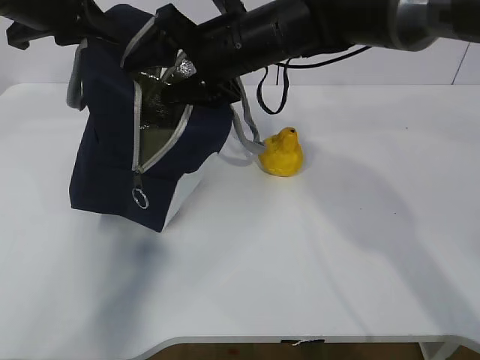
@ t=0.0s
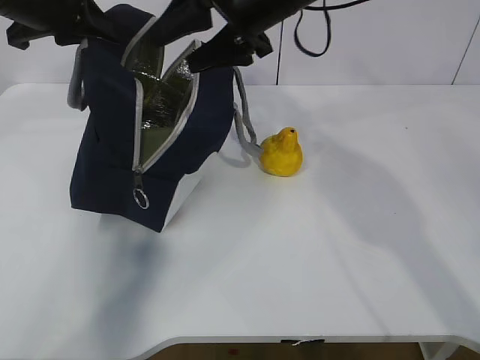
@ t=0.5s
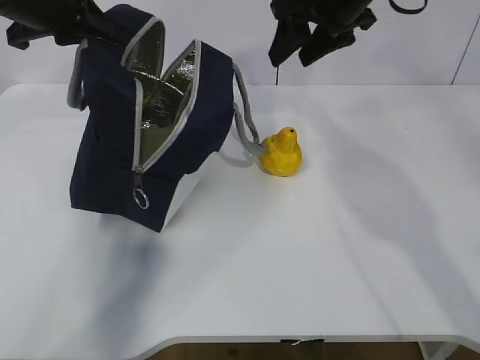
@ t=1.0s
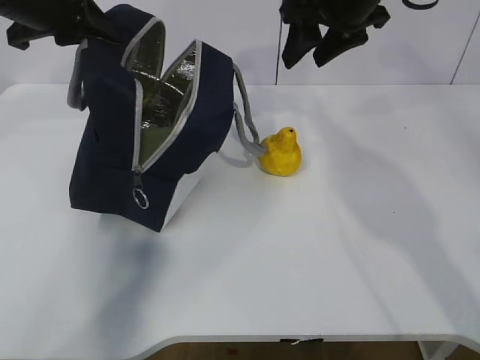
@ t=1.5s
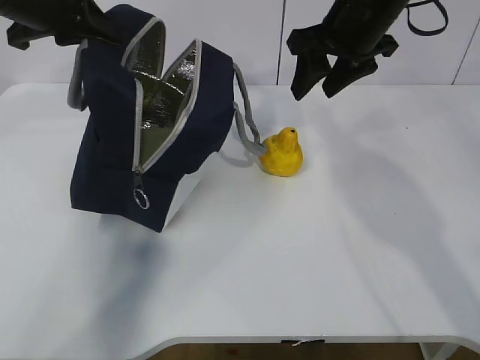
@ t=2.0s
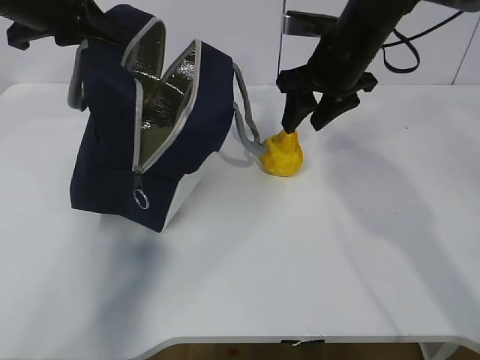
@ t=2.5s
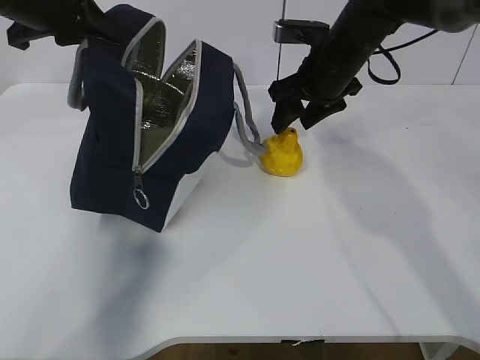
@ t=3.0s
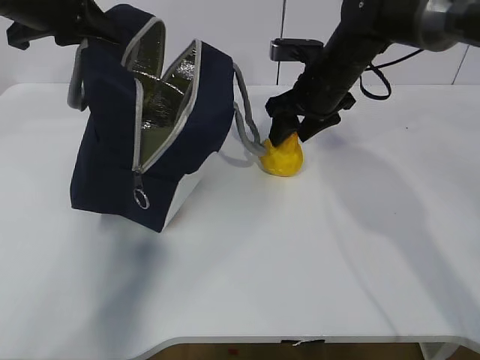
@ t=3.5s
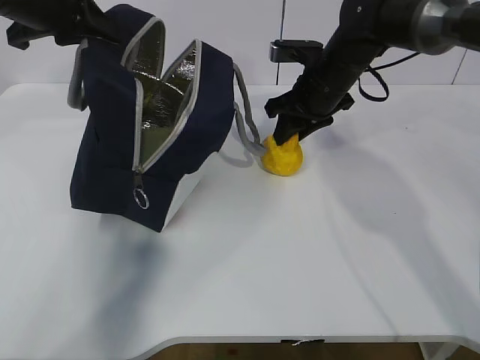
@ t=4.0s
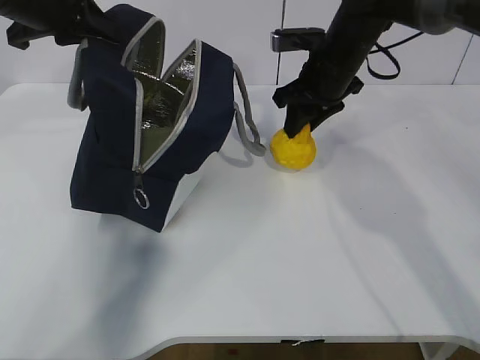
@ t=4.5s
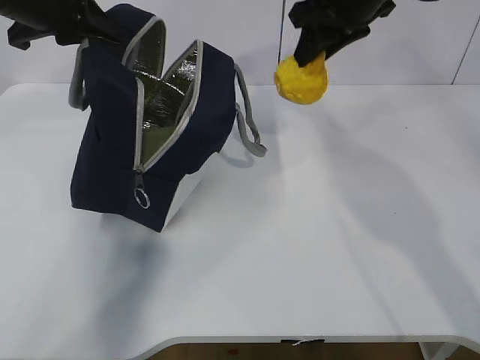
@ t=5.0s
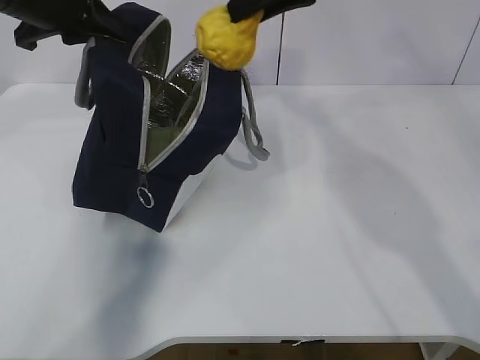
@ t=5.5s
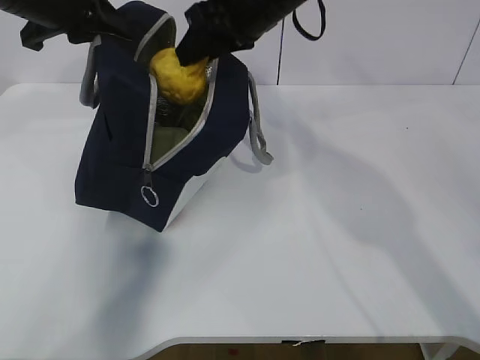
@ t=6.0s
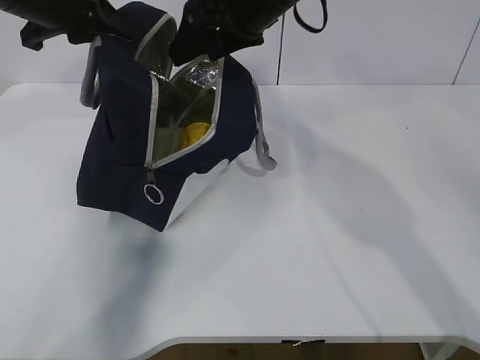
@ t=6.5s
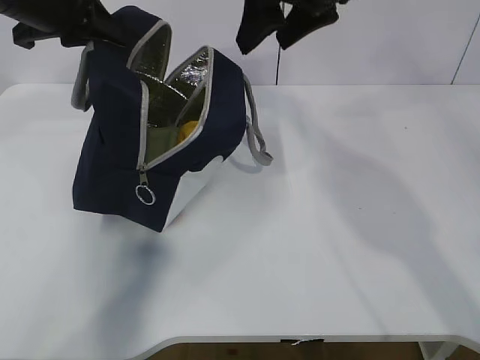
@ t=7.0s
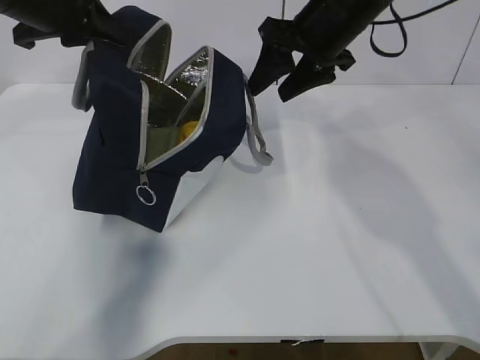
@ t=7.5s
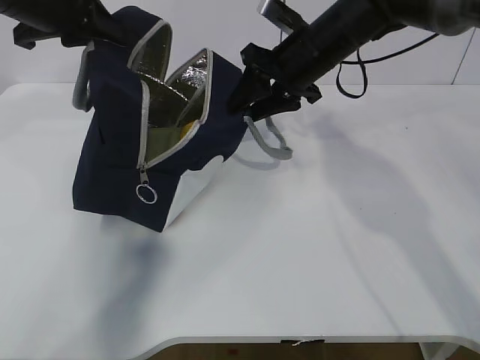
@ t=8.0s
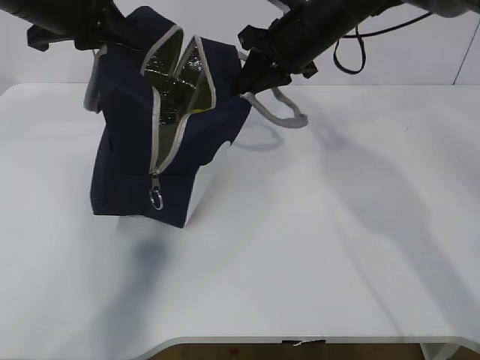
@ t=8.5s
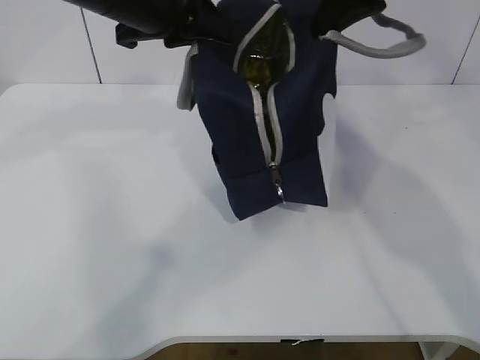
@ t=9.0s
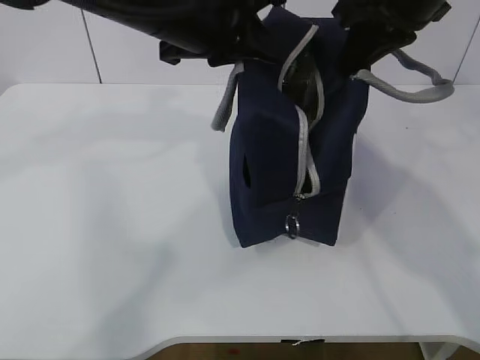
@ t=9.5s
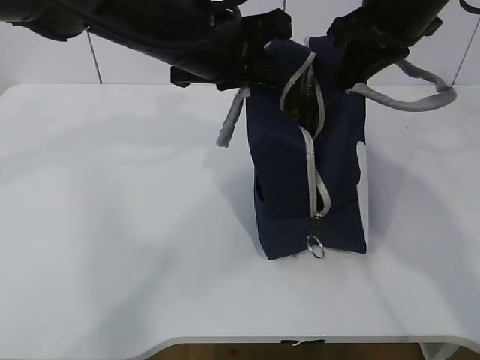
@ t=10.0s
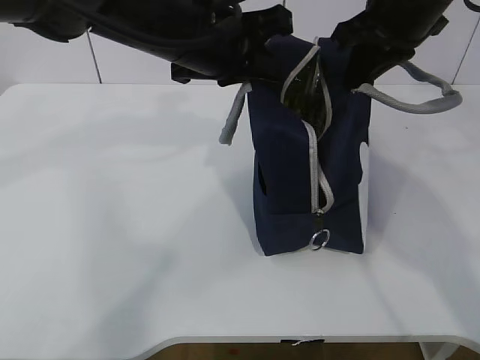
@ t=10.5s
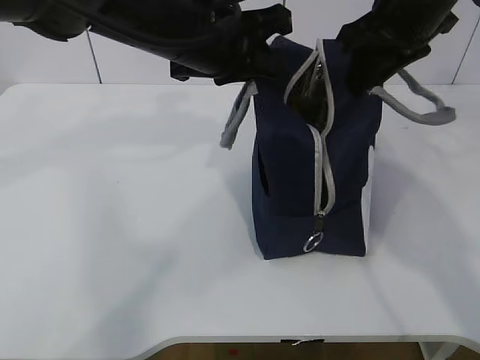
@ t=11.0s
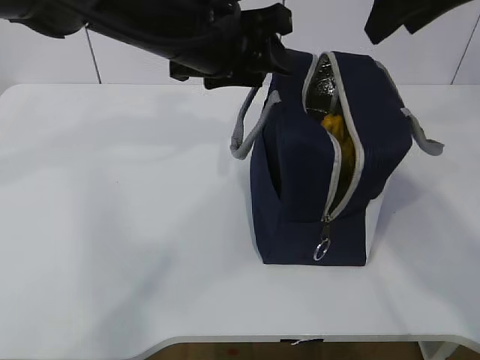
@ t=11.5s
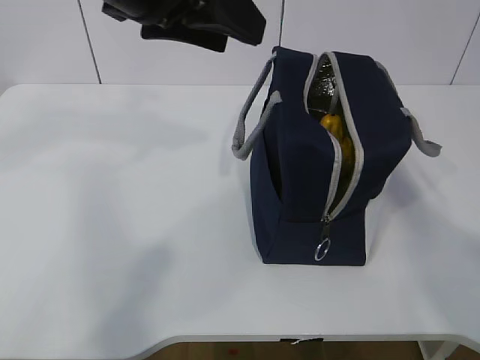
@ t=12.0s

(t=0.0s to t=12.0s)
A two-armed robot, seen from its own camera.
Step, t=0.5s - t=4.0s: Grasp the pear with the right gripper.
Step, t=4.5s - t=6.0s: Place the pear into the package with the right gripper.
t=0.0s - t=2.0s: The right gripper moves to the right, roughly 15 cm.
t=2.0s - t=4.0s: The right gripper shifts some 10 cm downward.
t=4.0s - t=6.0s: The right gripper shifts about 15 cm upward and to the left.
t=6.0s - t=8.0s: The right gripper moves downward and to the right, some 10 cm.
t=8.0s - t=10.0s: The left gripper heads to the right, covering roughly 15 cm. Meanwhile the right gripper is displaced upward, backward and to the right by approximately 15 cm, and closes.
t=10.0s - t=12.0s: The left gripper shifts about 10 cm upward and backward, and opens up, while the right gripper shifts approximately 15 cm upward and backward, and opens up.

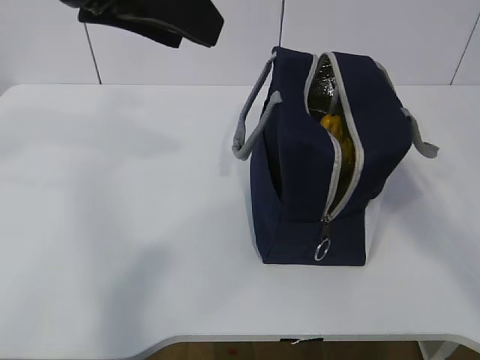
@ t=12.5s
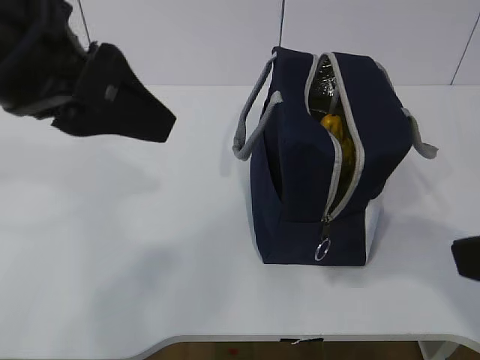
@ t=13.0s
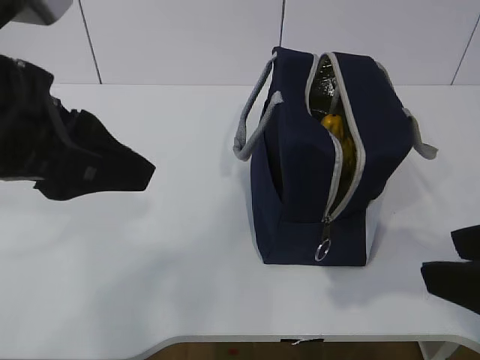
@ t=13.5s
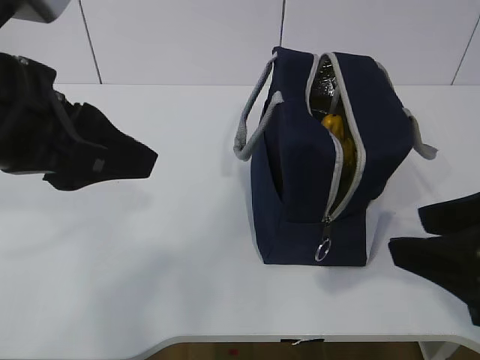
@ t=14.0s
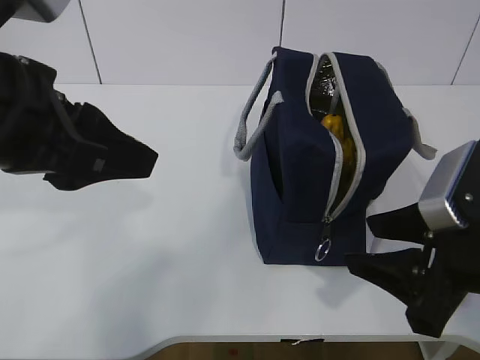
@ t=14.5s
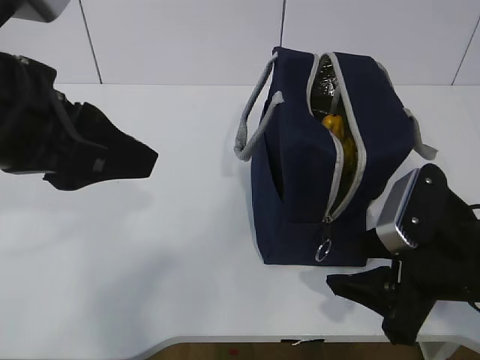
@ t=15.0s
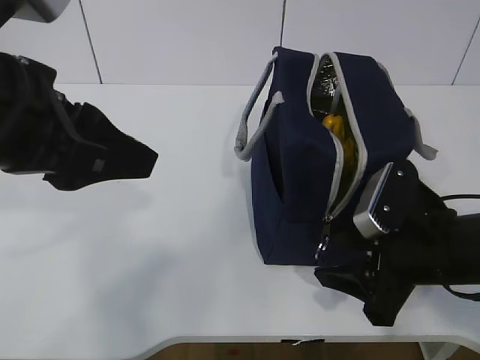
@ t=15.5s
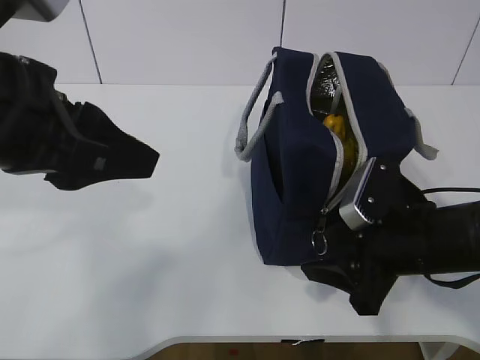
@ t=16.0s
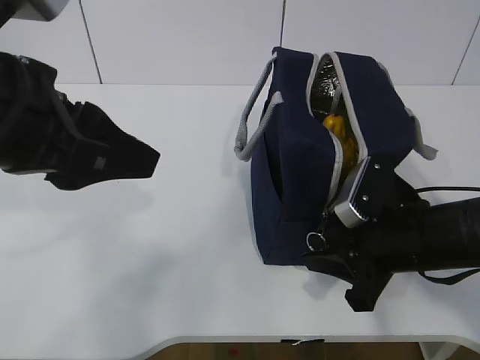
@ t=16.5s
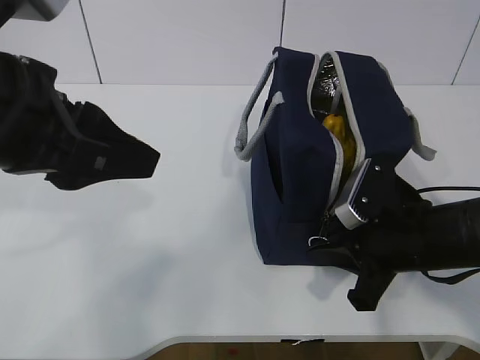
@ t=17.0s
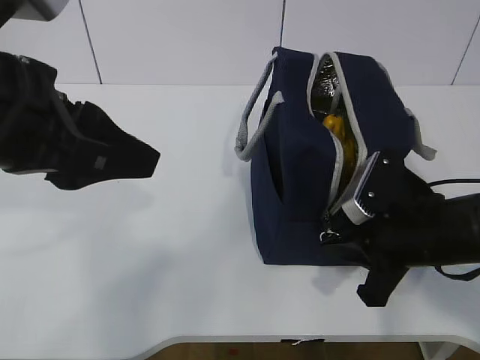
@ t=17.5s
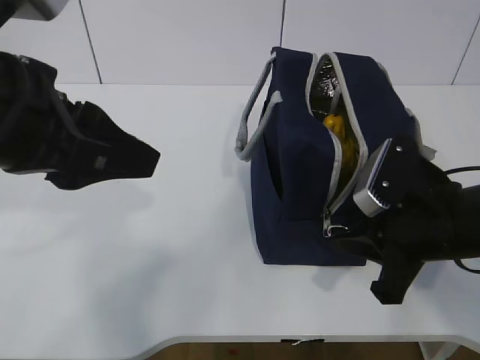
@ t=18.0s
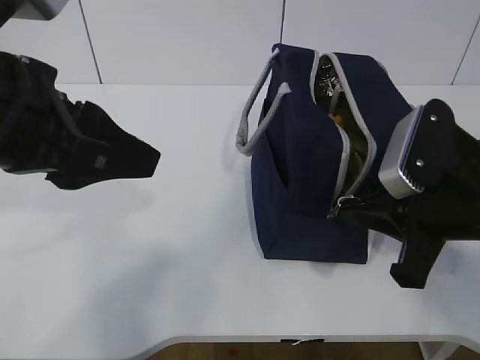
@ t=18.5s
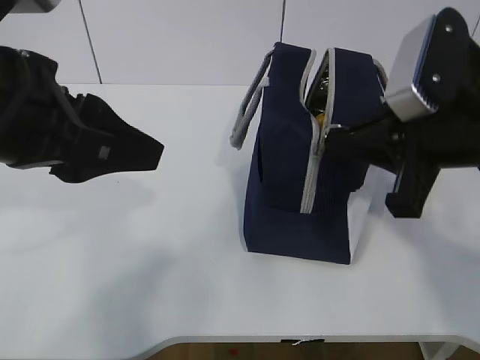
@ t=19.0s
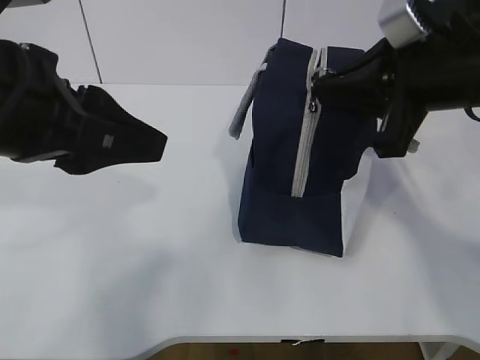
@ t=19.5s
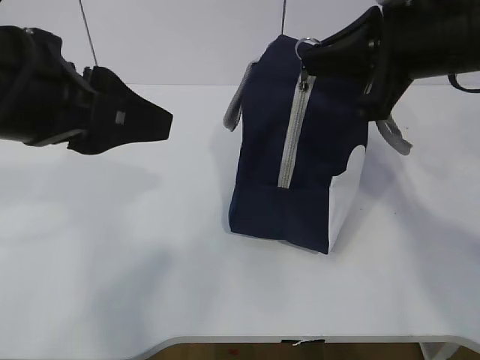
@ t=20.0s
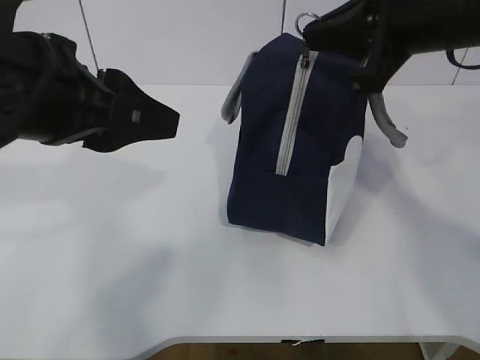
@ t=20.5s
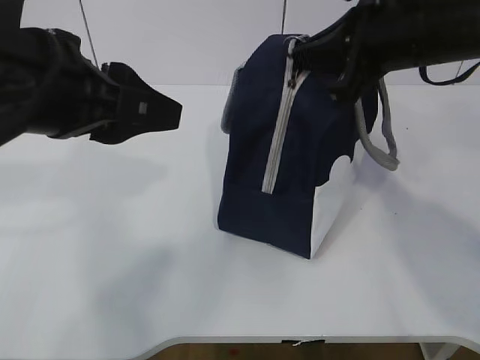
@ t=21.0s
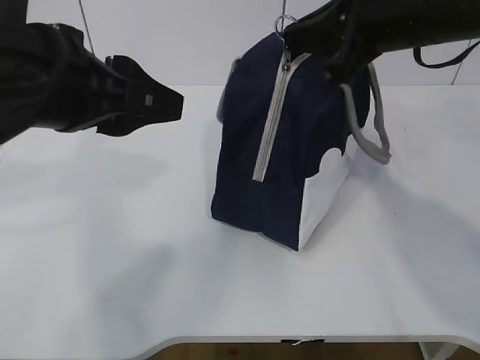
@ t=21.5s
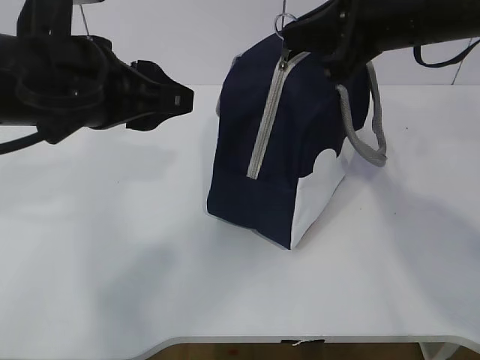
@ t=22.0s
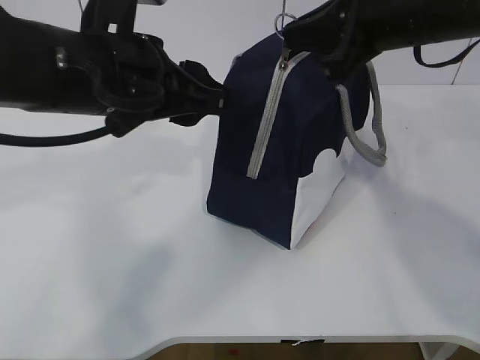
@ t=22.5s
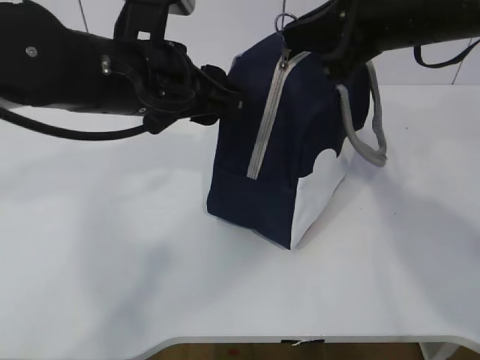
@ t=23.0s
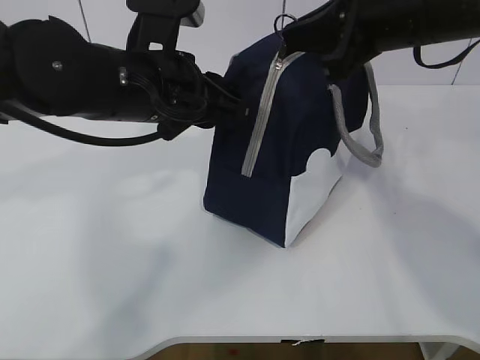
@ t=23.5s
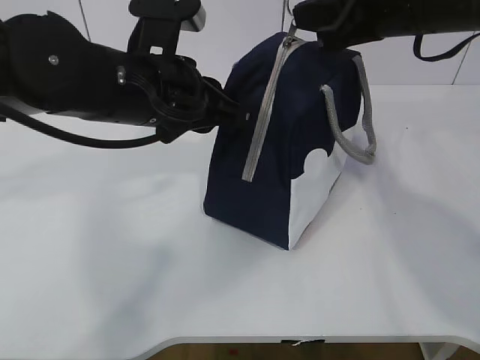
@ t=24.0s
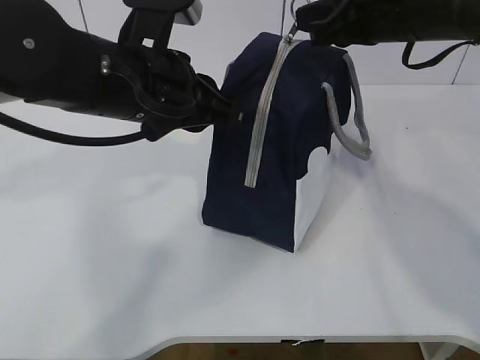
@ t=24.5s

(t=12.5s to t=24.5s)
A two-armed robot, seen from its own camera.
t=12.5s - t=14.5s: The left gripper is displaced downward by approximately 10 cm. The right gripper shifts about 20 cm downward.
t=14.5s - t=16.5s: The right gripper is displaced forward and downward by about 10 cm.
t=16.5s - t=18.5s: The right gripper moves upward, roughly 5 cm, and closes.
t=18.5s - t=20.5s: The right gripper travels upward and forward by some 15 cm.
t=20.5s - t=22.5s: The left gripper moves forward, about 5 cm.
t=22.5s - t=24.5s: The left gripper closes up.

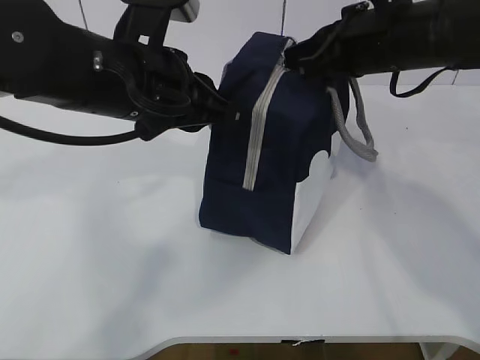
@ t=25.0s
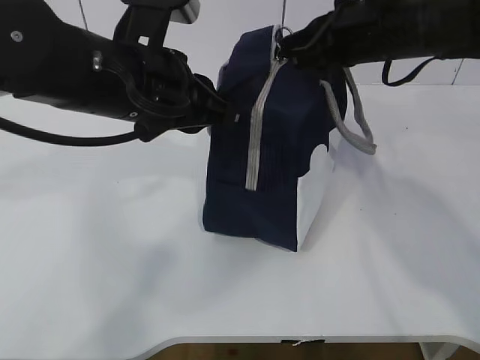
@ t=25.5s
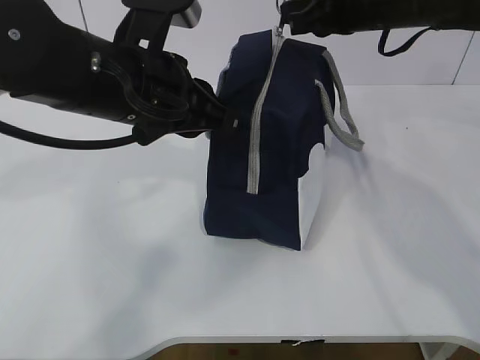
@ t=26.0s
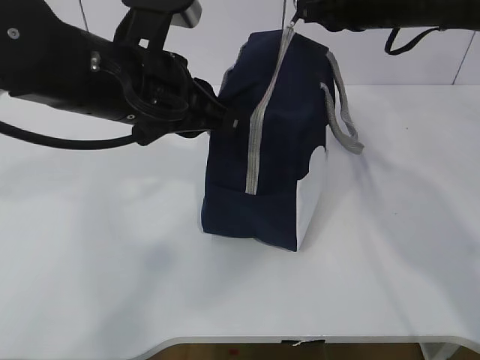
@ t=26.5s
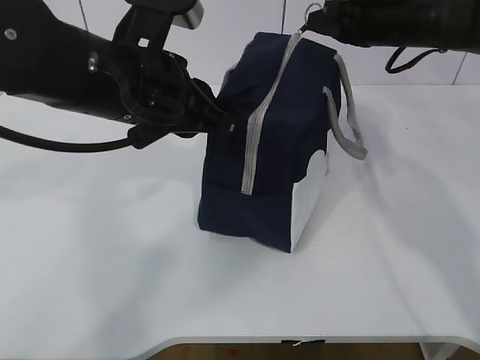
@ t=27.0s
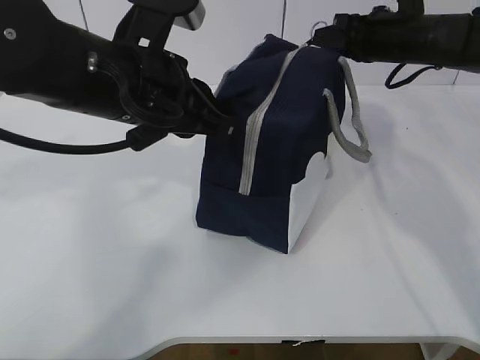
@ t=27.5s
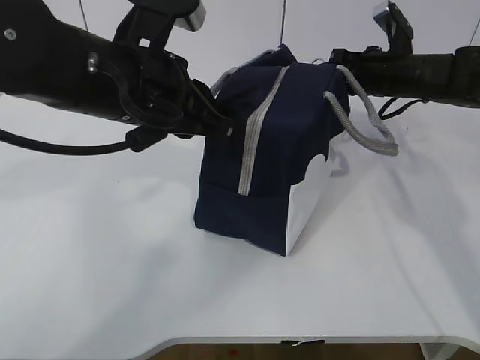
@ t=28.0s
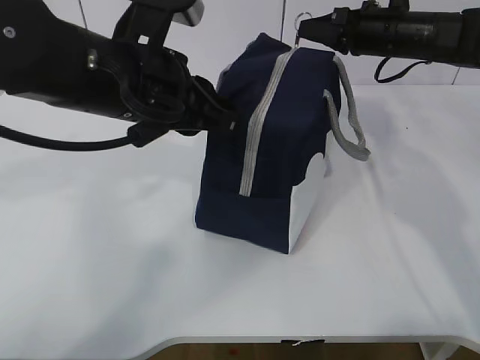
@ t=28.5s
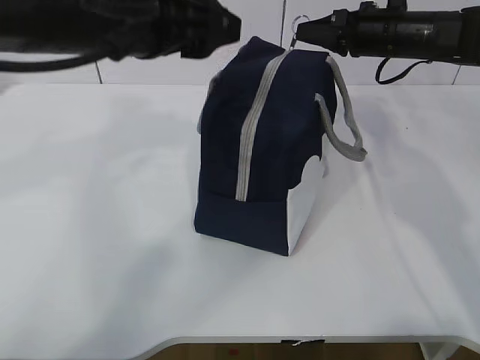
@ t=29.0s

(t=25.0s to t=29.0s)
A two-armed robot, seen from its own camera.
t=25.0s - t=27.0s: The right gripper shifts about 10 cm forward and to the right.
t=27.0s - t=29.0s: The left gripper shifts roughly 5 cm upward, and opens its fingers.
